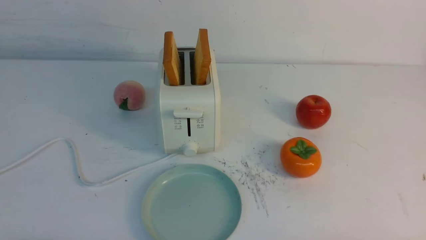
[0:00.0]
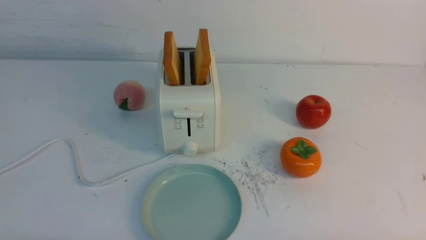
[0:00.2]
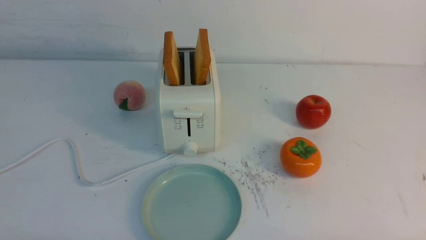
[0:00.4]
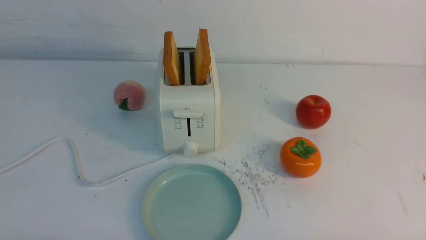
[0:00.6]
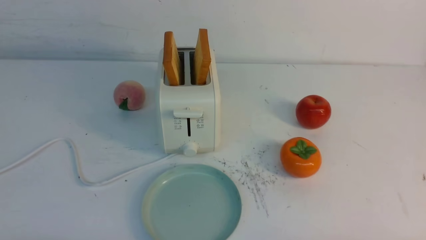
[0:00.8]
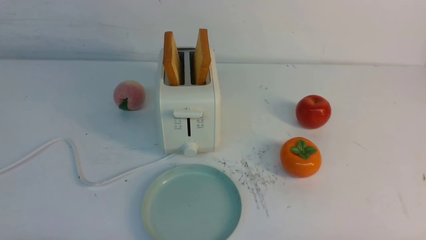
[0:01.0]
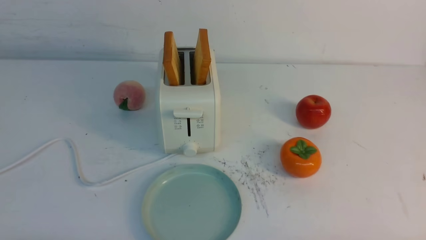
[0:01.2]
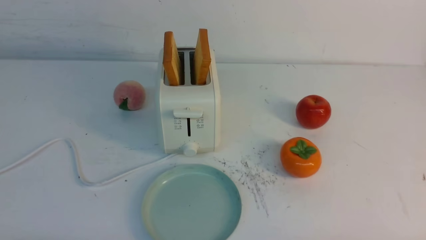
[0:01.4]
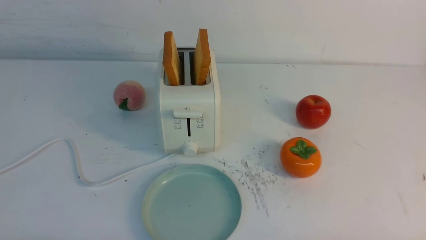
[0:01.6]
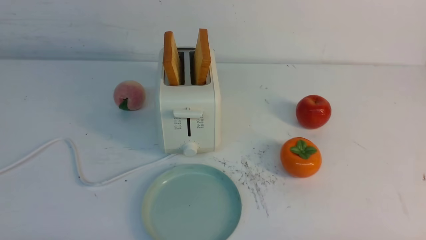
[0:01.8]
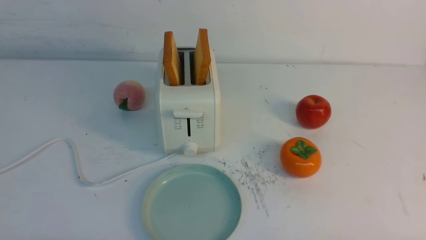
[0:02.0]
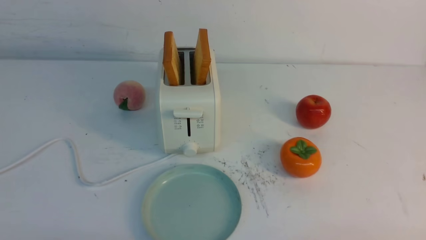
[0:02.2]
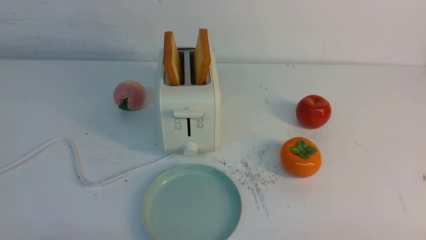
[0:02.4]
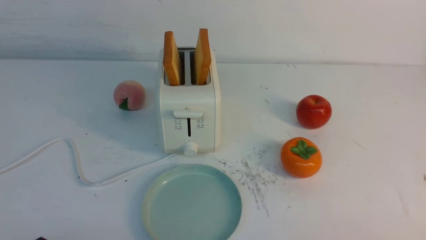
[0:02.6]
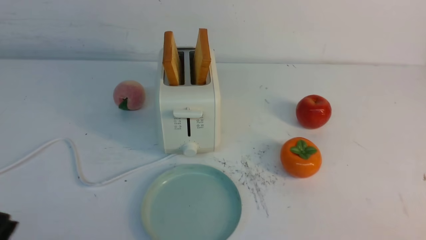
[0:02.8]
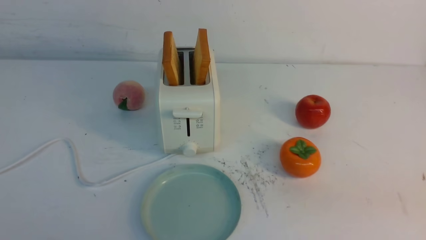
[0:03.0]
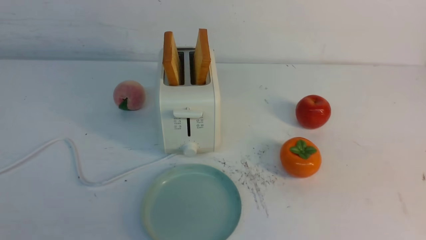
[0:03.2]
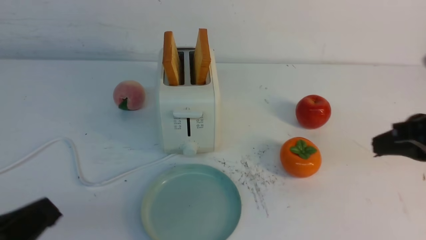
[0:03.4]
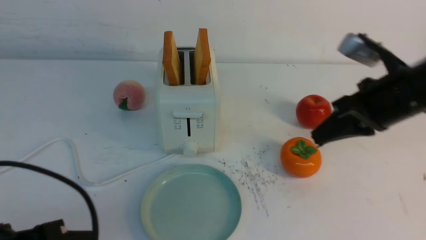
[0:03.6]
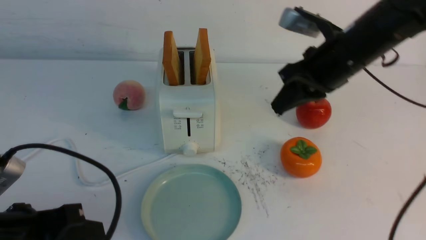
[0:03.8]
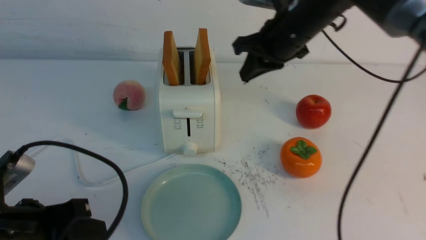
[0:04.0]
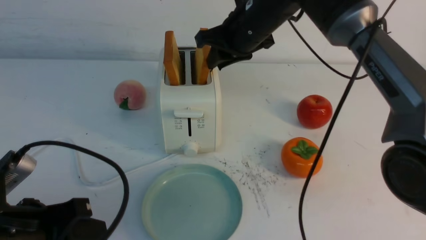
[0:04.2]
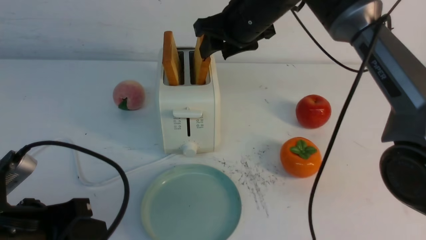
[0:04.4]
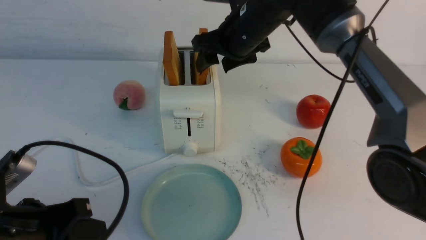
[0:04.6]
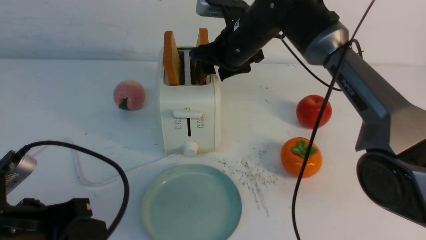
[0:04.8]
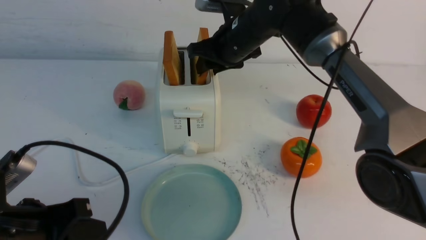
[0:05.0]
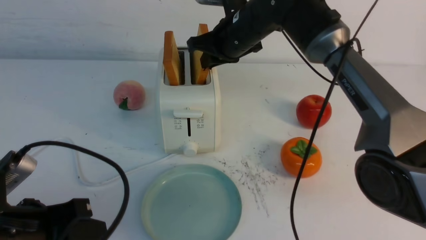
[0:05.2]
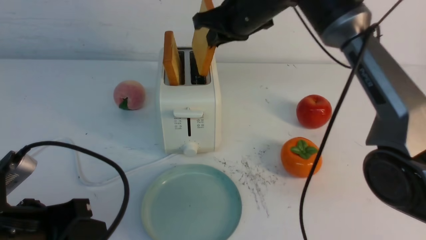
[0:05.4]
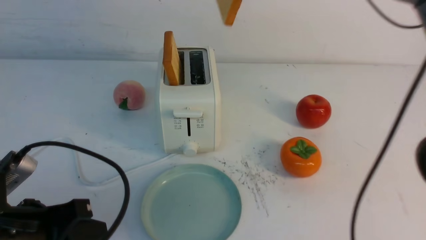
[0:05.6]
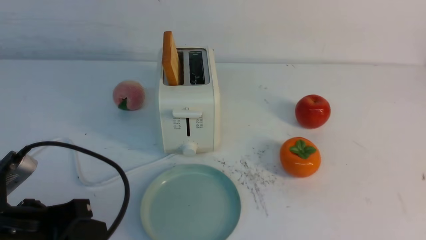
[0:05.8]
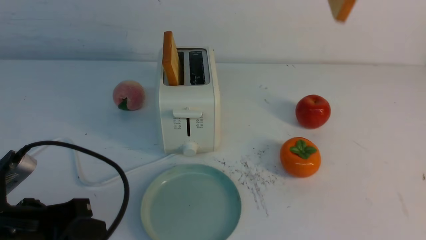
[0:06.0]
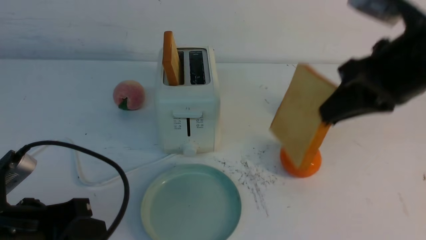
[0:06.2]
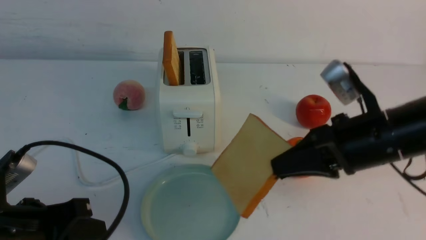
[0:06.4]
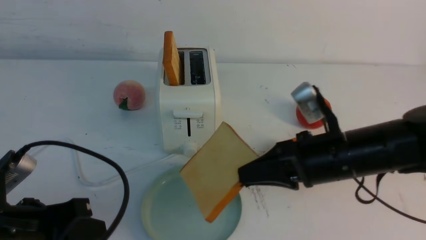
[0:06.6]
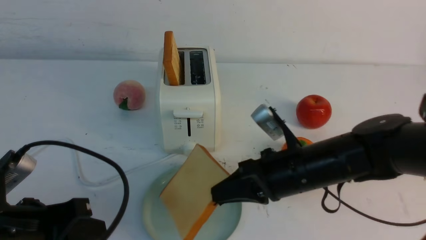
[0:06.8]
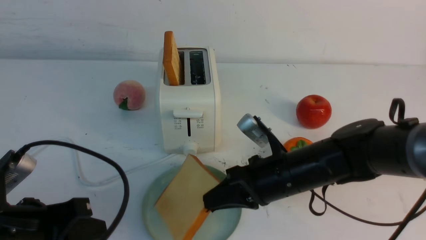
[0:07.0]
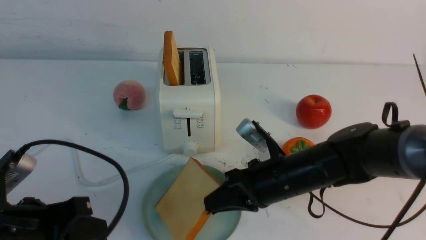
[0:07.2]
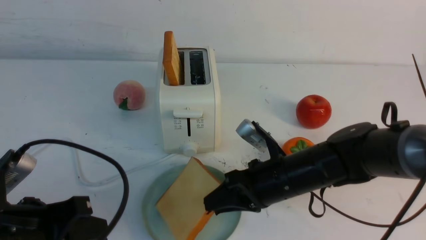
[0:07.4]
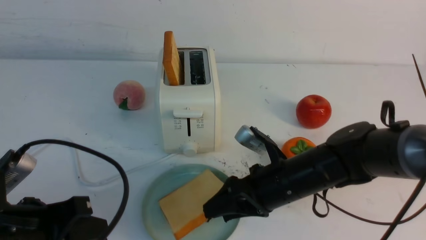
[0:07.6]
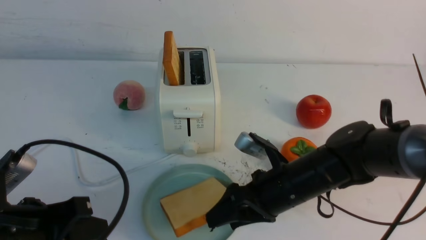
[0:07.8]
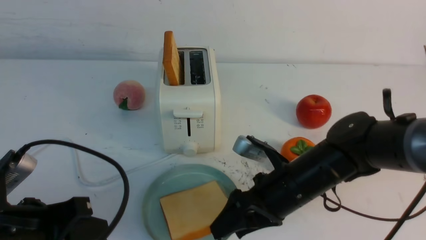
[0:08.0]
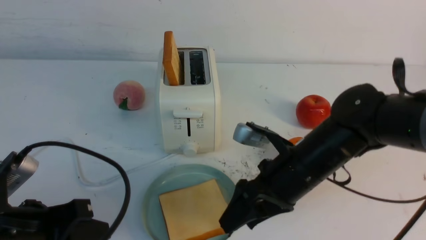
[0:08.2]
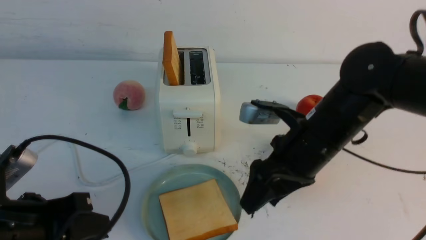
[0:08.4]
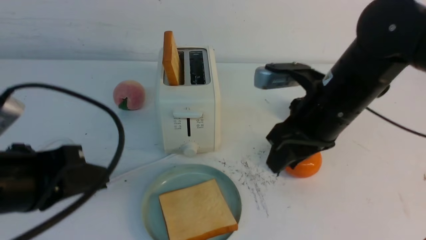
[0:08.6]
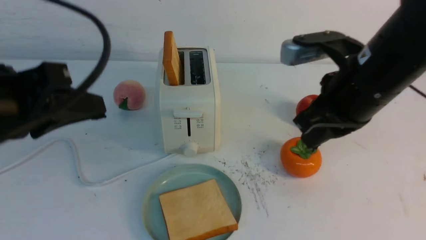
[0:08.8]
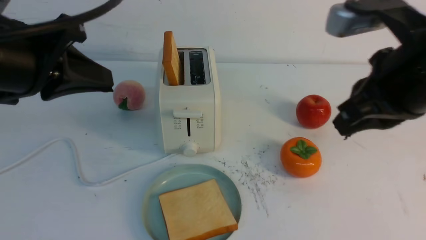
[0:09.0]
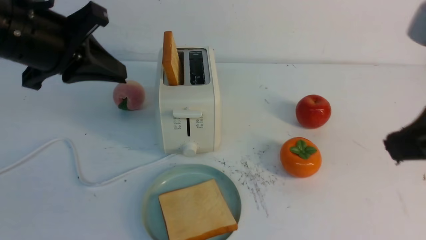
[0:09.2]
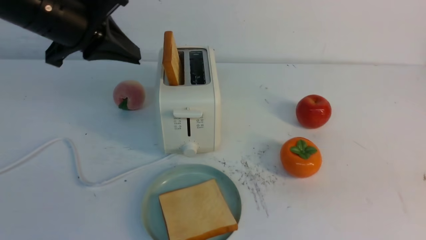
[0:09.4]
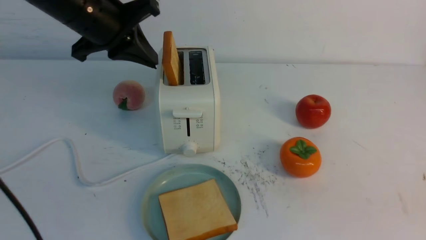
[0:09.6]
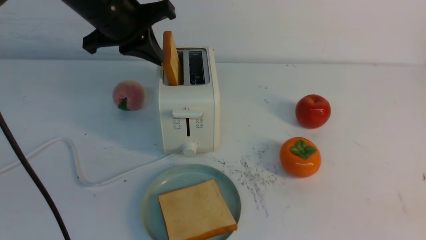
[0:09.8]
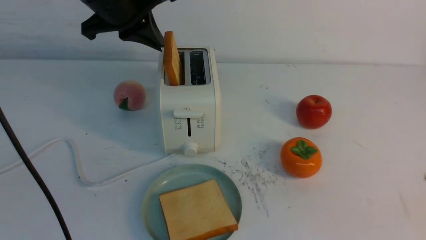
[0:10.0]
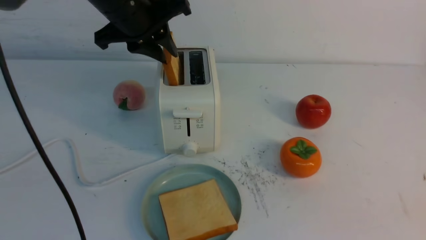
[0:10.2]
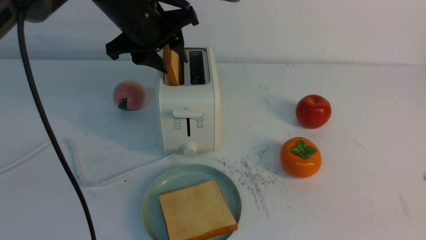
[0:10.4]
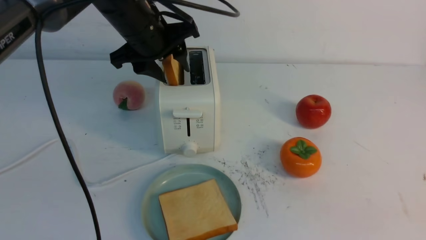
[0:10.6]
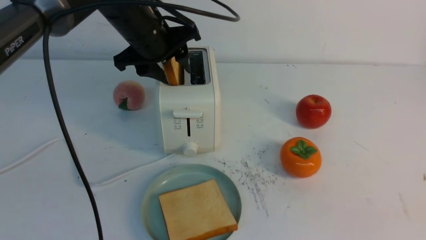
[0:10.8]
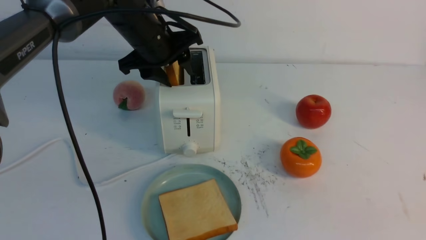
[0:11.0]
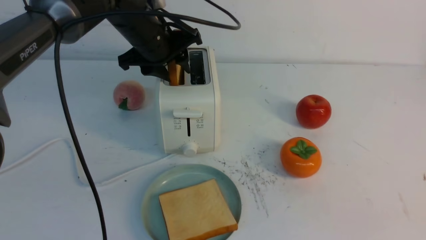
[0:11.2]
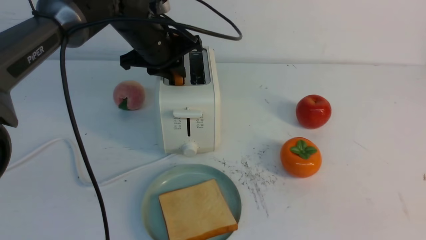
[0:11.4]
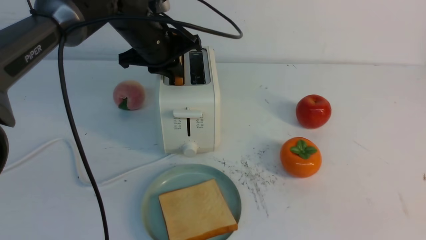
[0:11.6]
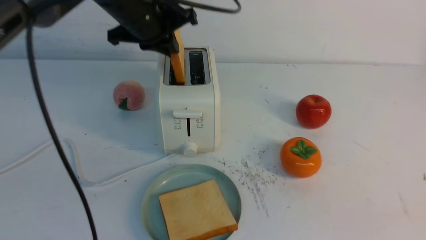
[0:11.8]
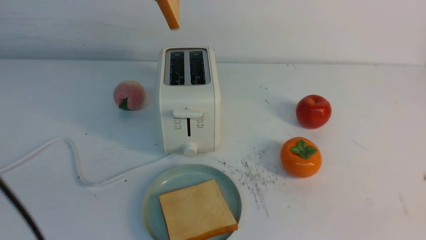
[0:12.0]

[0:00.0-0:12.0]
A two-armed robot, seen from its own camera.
Task of the whole recording: take toasted bread from bread machine on white table place on plate.
Step, 0:00.0 to 0:05.4: use the right arm to take out a slice of bread.
Step, 0:05.6 to 0:08.2: use the right arm to put a slice of bread into the plate.
Step, 0:08.4 to 0:11.6: use the left arm to take out a slice of bread.
0:00.0 to 0:01.6: Both grippers stay put.
0:03.0 to 0:04.4: The left gripper shifts some 10 cm forward, while the right gripper is displaced forward and to the left by approximately 40 cm, and opens up.
0:04.4 to 0:06.0: The right gripper shifts about 25 cm to the right, upward and backward, and closes.
0:06.0 to 0:07.6: The right gripper travels downward by roughly 30 cm, and opens its fingers.
0:07.6 to 0:09.0: The right gripper moves upward, roughly 25 cm, and closes up. The left gripper shifts some 20 cm upward and forward.
0:09.0 to 0:10.4: The right gripper moves backward and to the right, about 20 cm. The left gripper moves forward and to the right, roughly 20 cm, and opens up.
0:10.4 to 0:12.0: The left gripper travels upward and backward by about 10 cm, and closes.

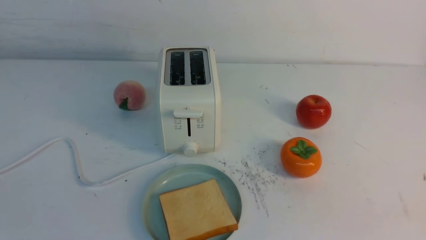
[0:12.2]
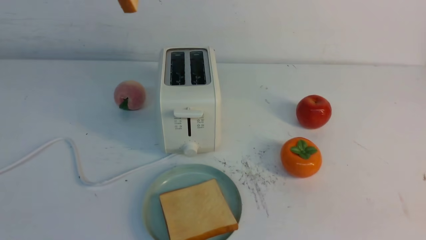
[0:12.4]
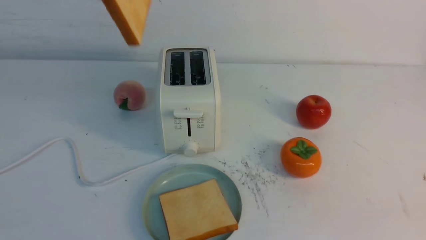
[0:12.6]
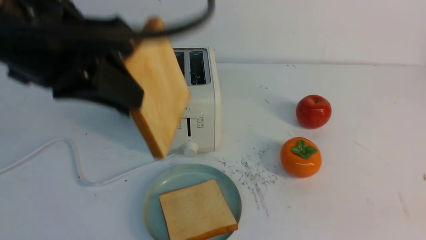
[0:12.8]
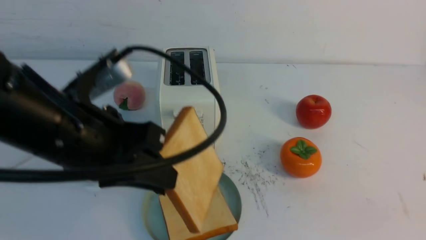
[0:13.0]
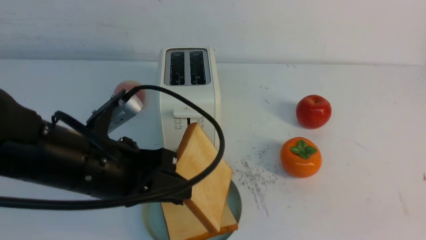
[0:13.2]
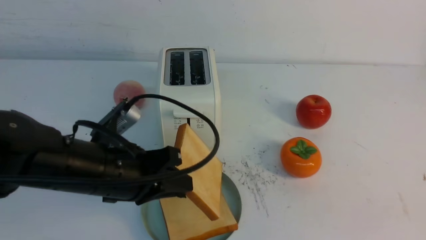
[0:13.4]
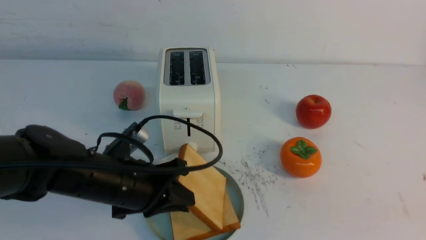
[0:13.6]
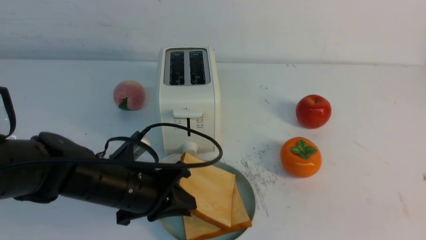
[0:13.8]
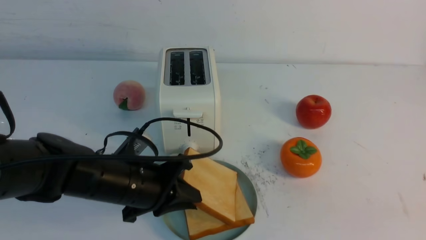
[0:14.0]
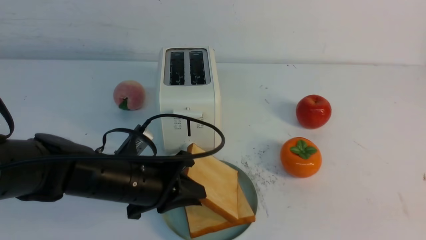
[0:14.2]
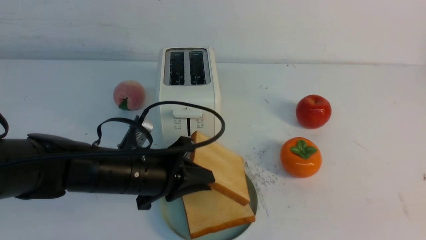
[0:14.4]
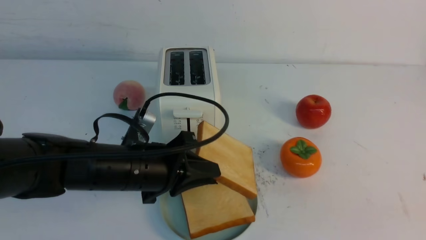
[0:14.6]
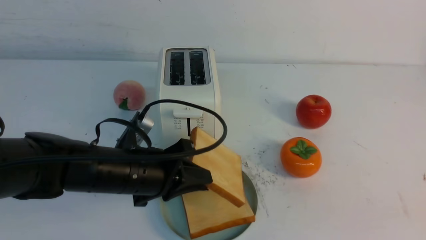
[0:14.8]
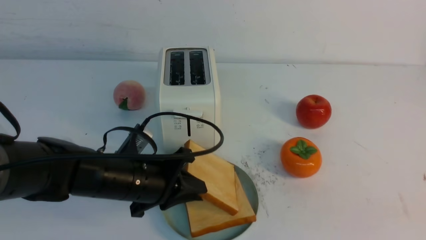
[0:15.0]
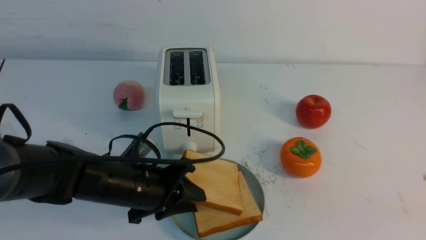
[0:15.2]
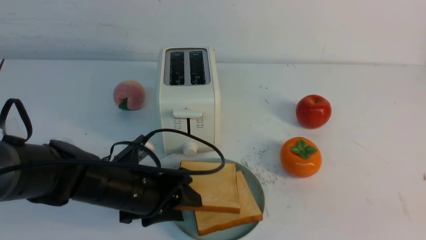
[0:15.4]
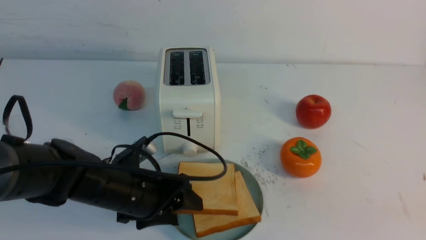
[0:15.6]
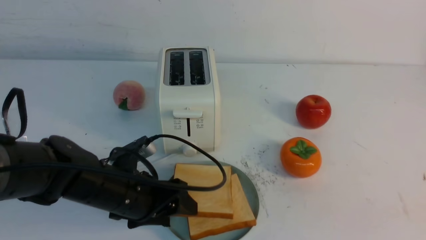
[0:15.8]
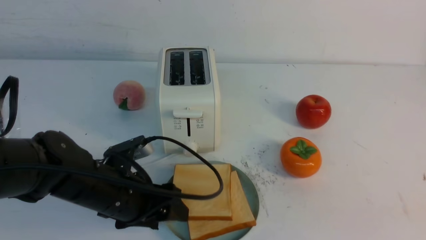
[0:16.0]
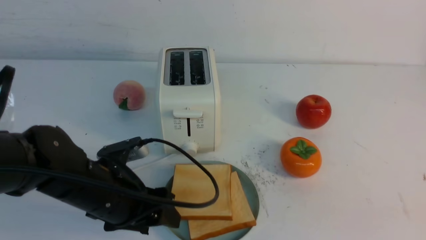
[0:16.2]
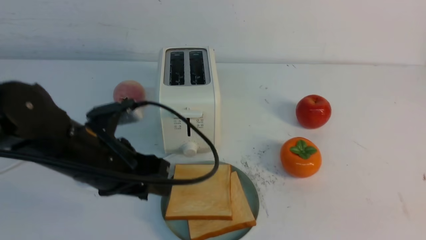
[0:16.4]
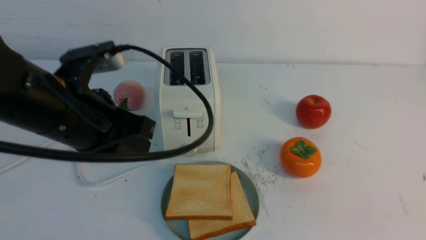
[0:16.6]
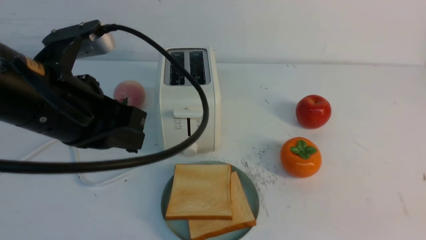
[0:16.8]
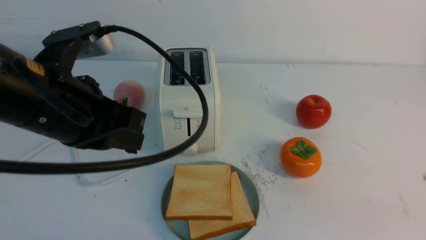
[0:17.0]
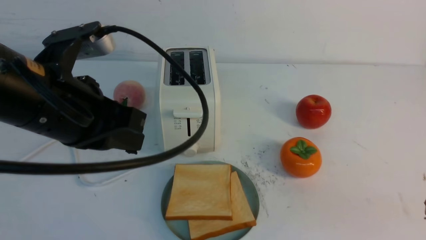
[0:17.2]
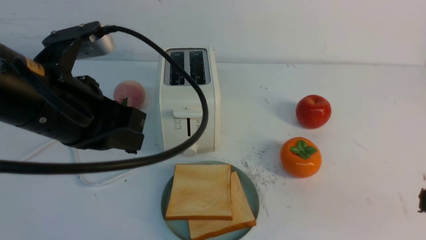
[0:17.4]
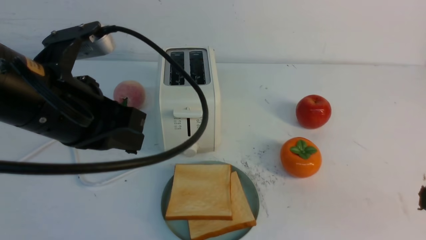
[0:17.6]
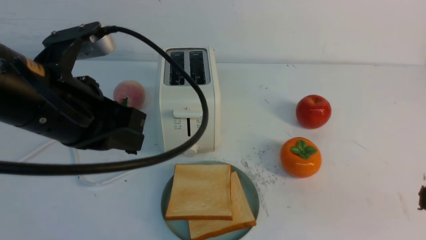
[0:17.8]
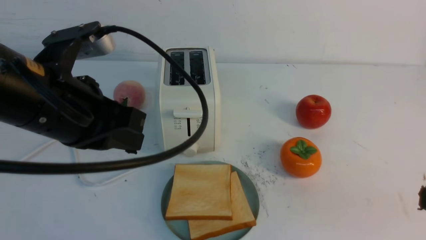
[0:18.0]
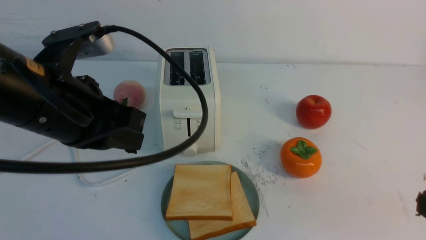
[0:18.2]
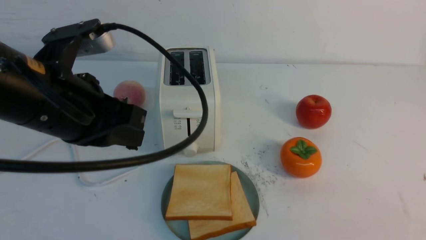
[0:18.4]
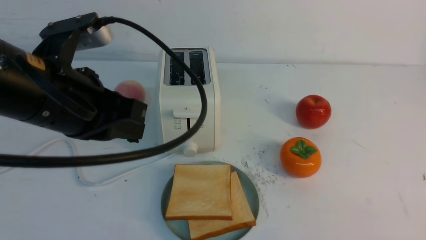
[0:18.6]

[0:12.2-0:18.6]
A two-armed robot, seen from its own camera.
Task of the whole recording: take toasted bread from bread machine on white table place on plate.
Step, 0:12.2 to 0:16.0: use the left arm to put a slice of bread into the empty plate.
0:12.2 to 0:13.8: The left gripper is displaced downward by roughly 35 cm.
0:13.8 to 0:15.4: The left gripper opens up.
0:15.4 to 0:17.0: The left gripper travels upward by some 20 cm, and closes its fingers; the right gripper shifts by about 5 cm.
0:17.0 to 0:18.6: The right gripper is displaced downward by roughly 10 cm.
